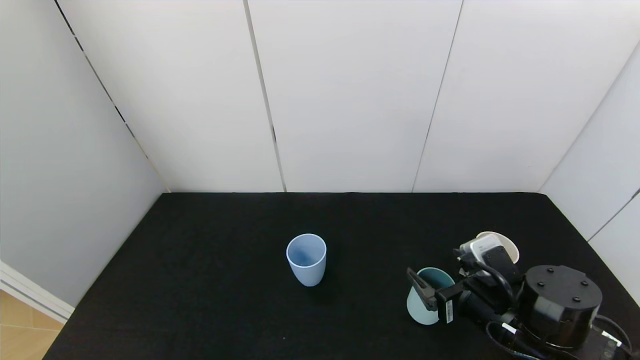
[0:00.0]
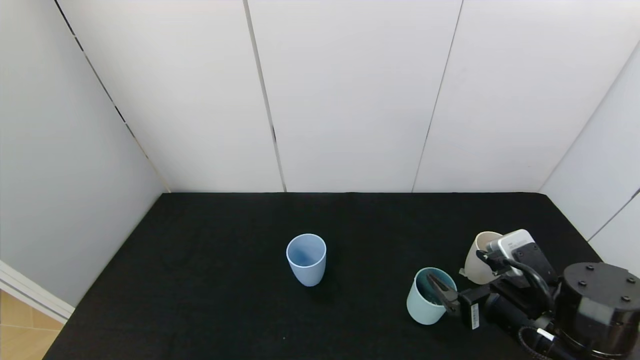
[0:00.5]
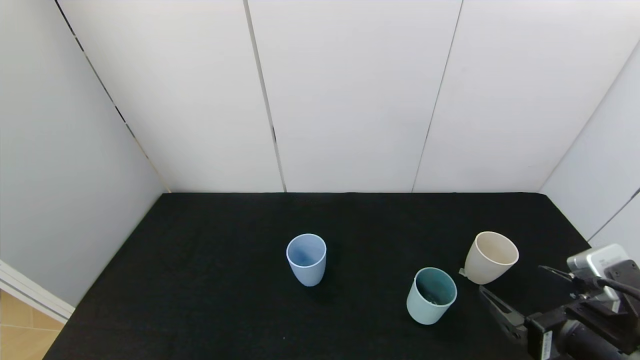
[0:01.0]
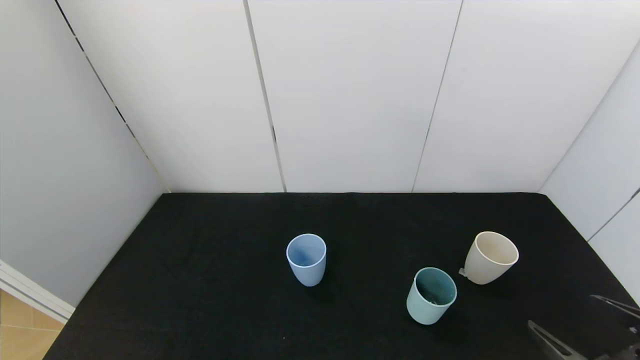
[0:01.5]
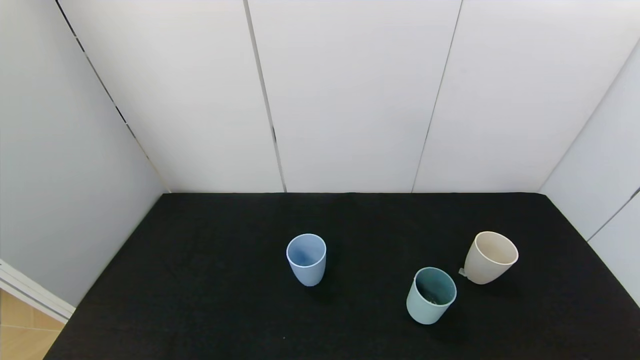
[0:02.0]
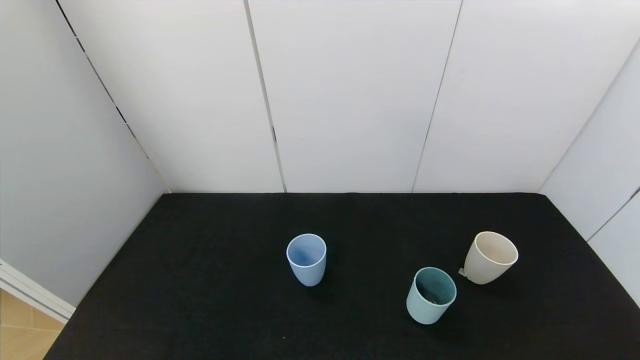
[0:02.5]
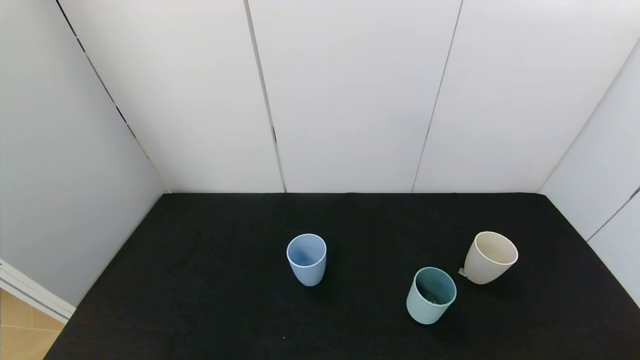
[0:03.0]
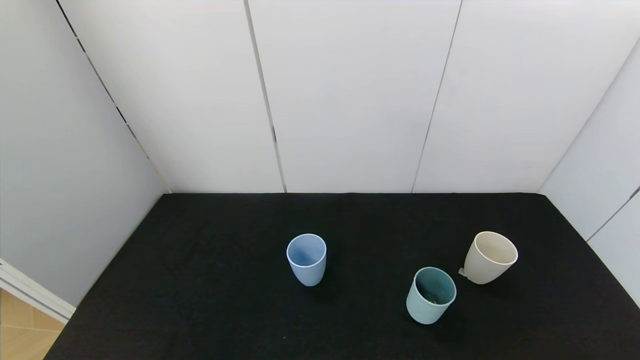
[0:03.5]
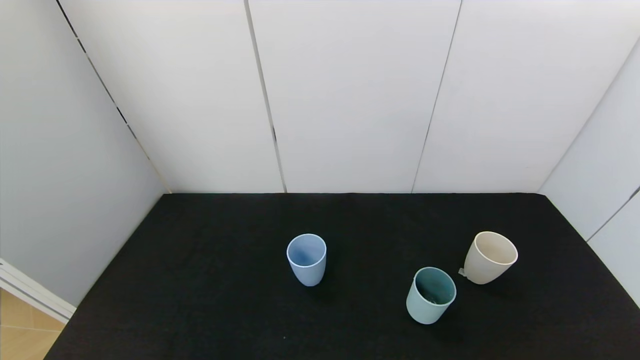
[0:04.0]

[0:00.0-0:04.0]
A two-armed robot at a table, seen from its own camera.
Task of the whole recording: use the gripper to pour the water into the other two cups on black table.
0:00.0 to 0:02.0: The right gripper is displaced backward and to the right by some 20 cm.
